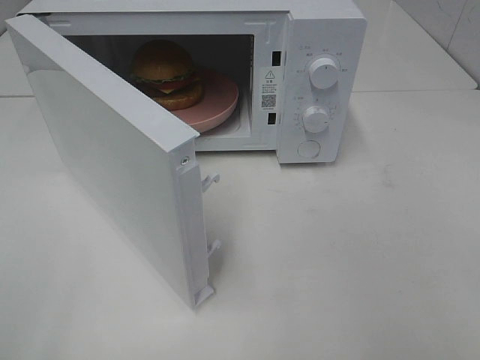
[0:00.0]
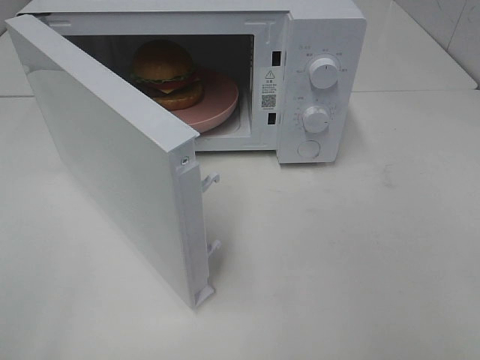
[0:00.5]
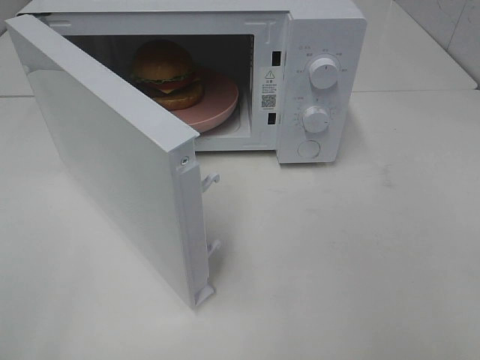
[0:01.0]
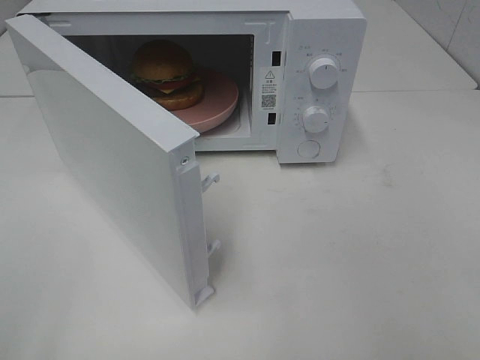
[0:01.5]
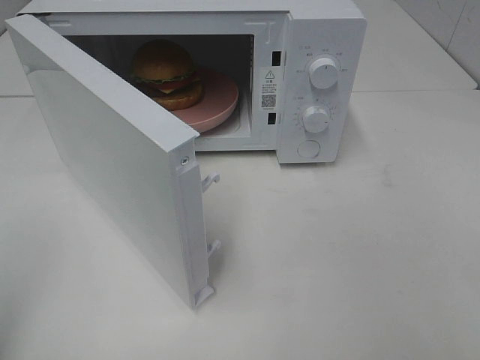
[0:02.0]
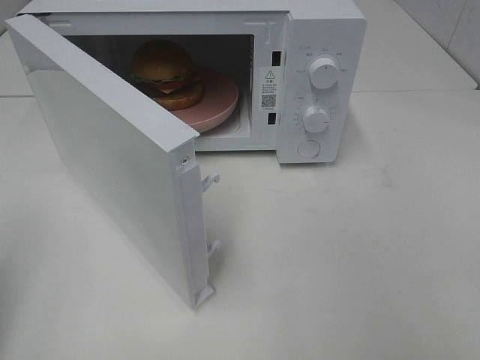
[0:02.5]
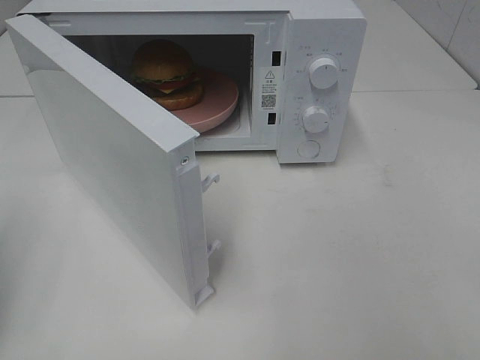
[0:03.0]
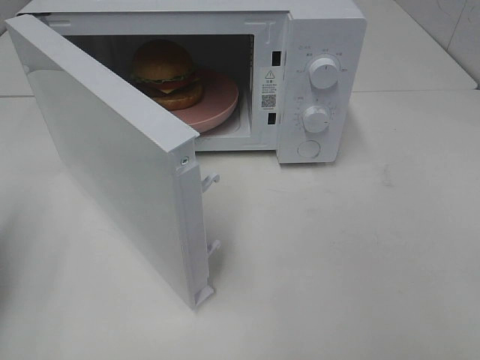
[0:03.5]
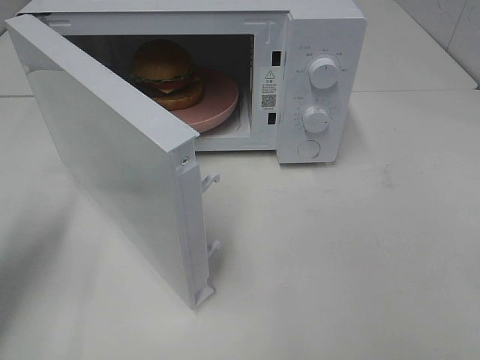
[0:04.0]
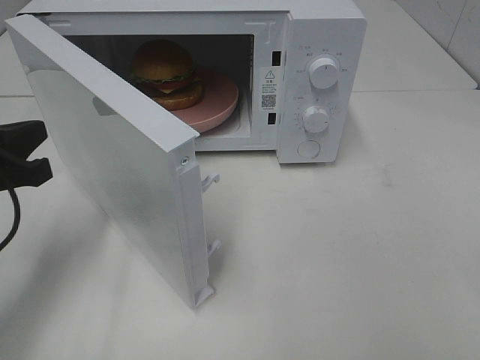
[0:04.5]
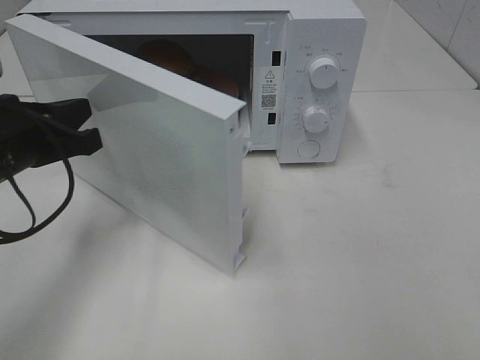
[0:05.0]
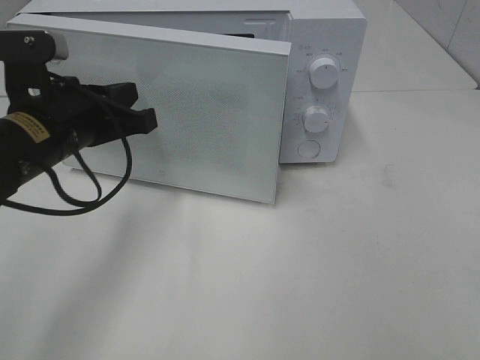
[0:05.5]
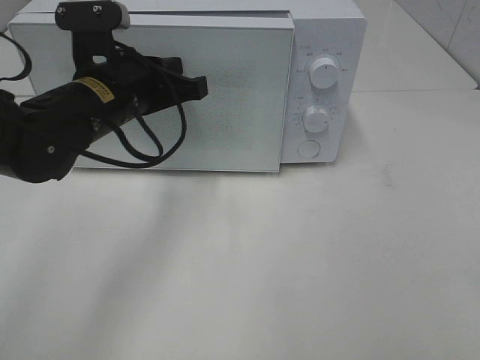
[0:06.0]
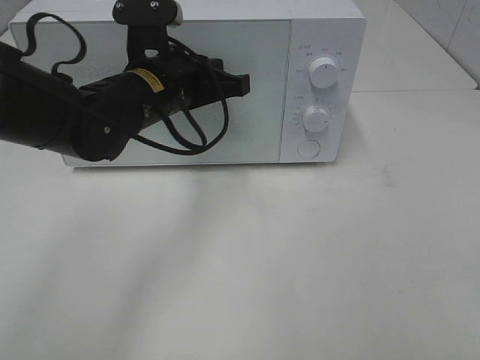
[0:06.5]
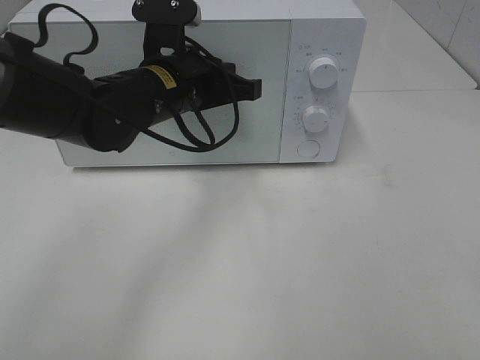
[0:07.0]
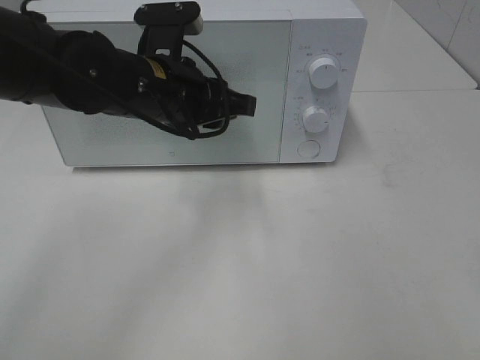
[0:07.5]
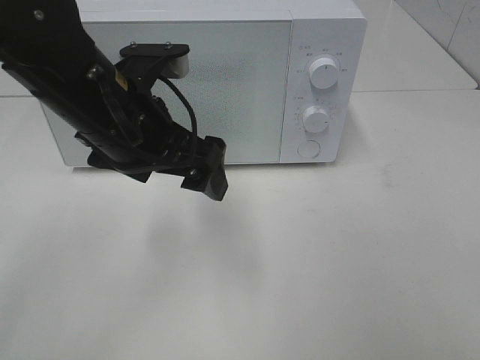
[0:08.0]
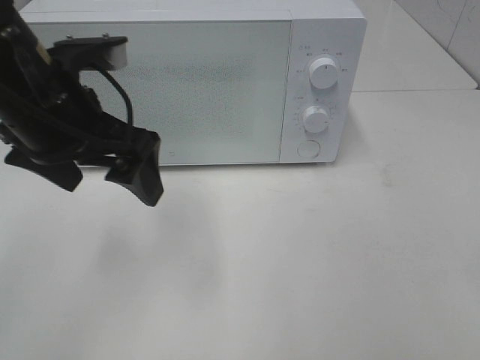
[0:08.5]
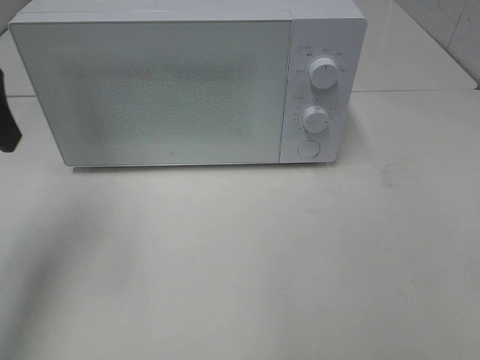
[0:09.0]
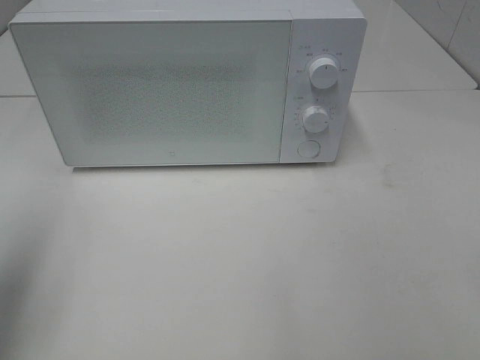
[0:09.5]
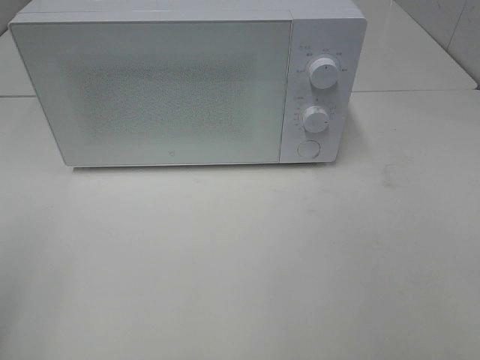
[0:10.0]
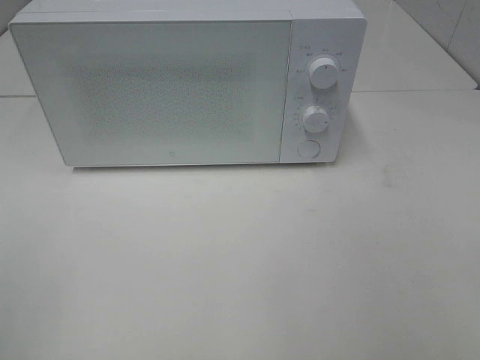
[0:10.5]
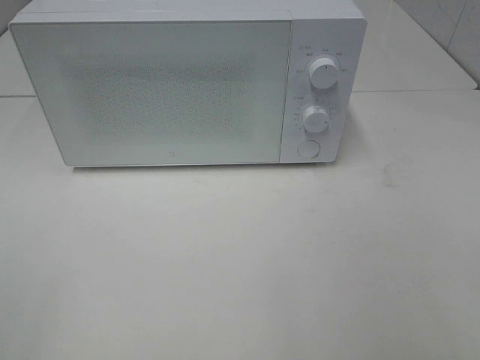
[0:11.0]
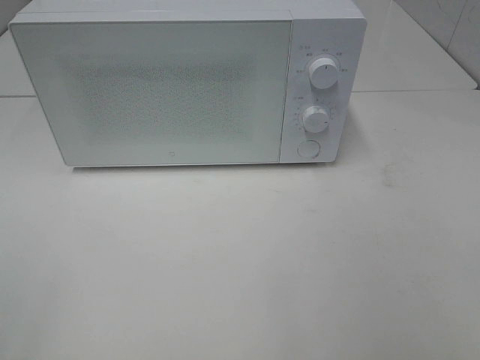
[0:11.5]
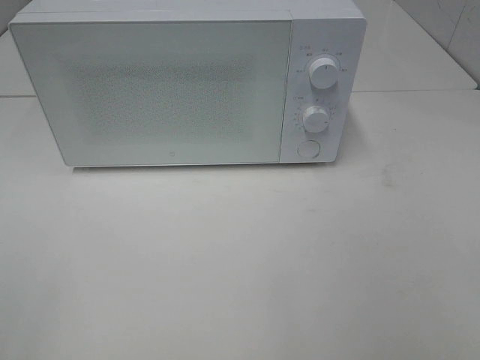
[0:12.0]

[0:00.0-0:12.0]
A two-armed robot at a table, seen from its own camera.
Task of the whole recording: Heat the burger.
Step, 0:00.0 to 0:07.0: Left hand: close the microwave door.
0:02.0 to 0:04.0: The left gripper heads forward and downward, covering approximately 20 cm.
0:04.0 to 0:06.0: The left gripper travels to the right and forward by approximately 20 cm.
0:06.0 to 0:08.0: The left gripper goes some 5 cm backward, and opens its fingers.
0:08.0 to 0:10.0: The left gripper moves to the left and backward, approximately 30 cm.

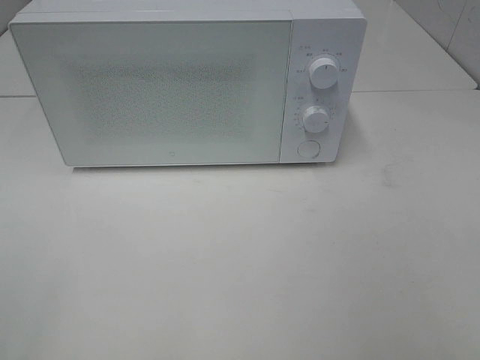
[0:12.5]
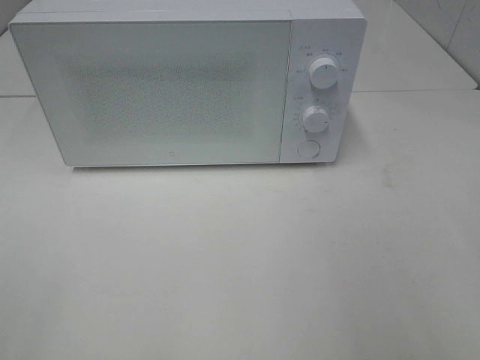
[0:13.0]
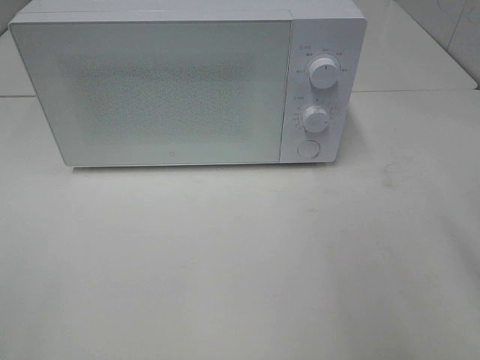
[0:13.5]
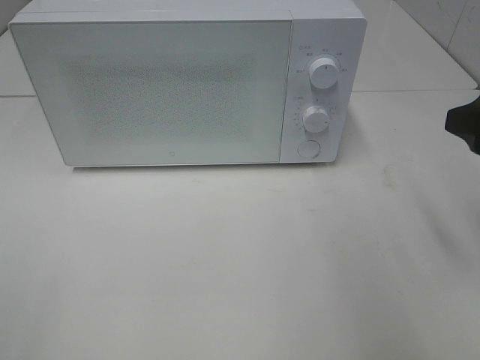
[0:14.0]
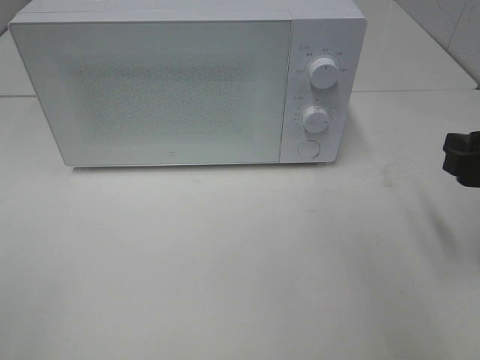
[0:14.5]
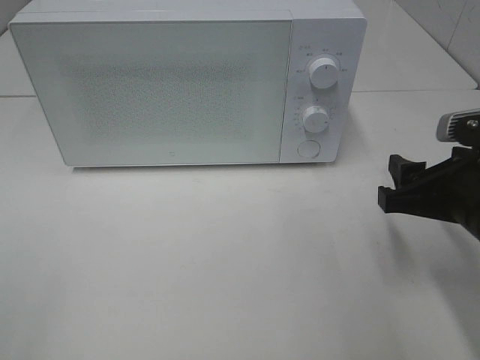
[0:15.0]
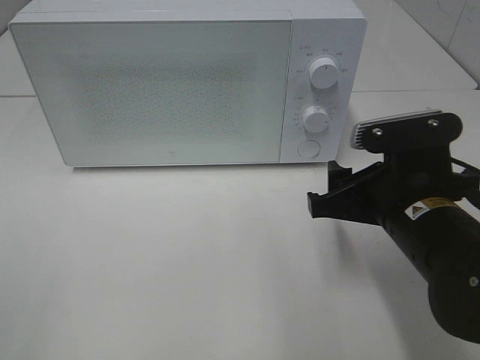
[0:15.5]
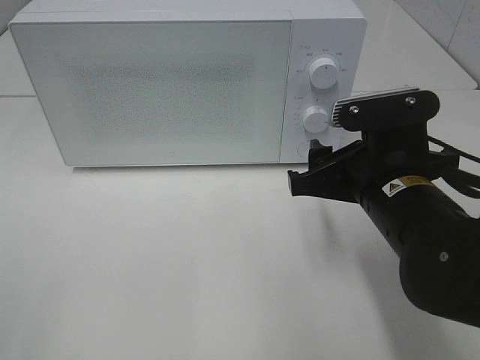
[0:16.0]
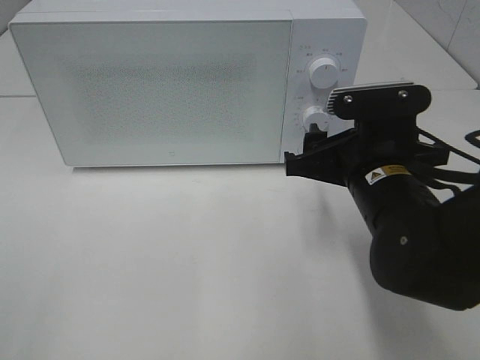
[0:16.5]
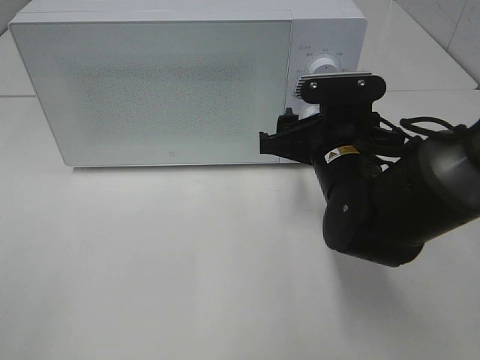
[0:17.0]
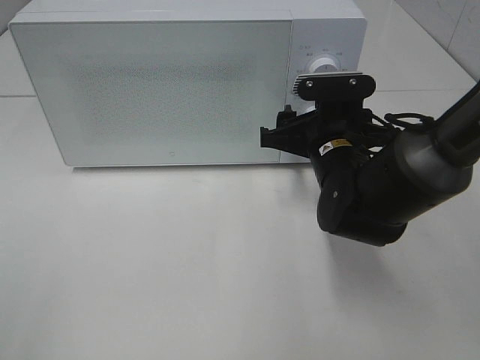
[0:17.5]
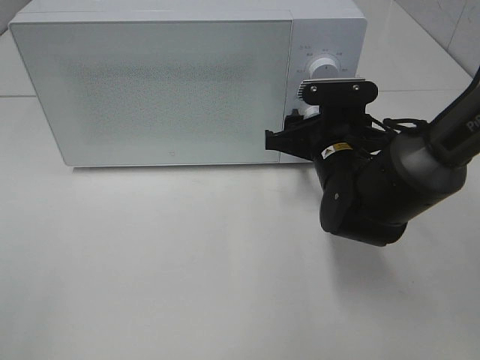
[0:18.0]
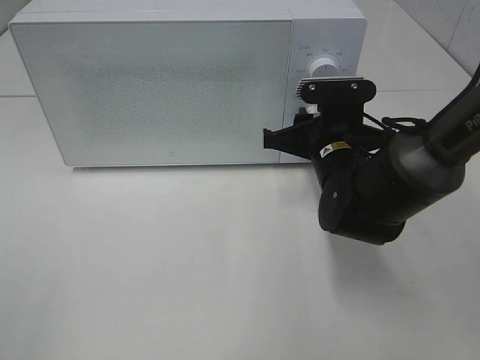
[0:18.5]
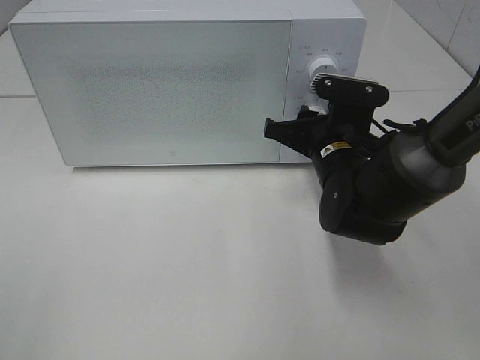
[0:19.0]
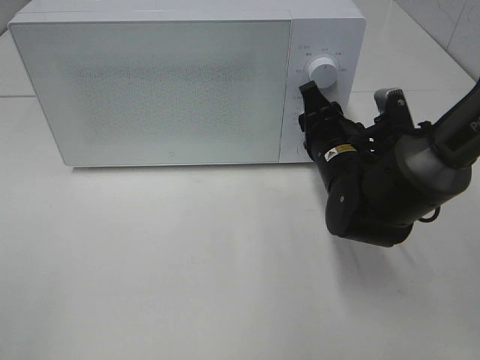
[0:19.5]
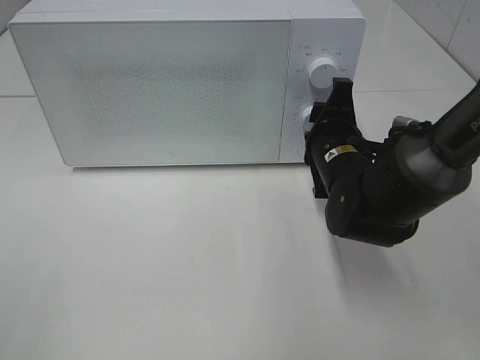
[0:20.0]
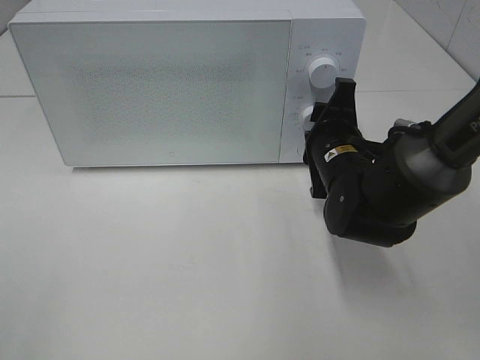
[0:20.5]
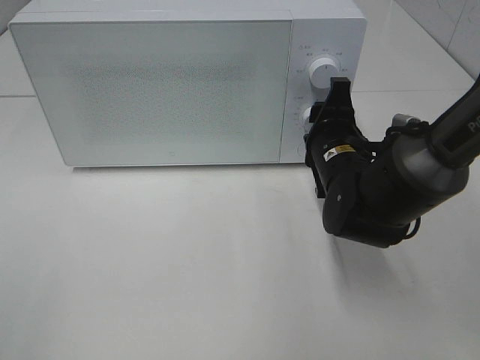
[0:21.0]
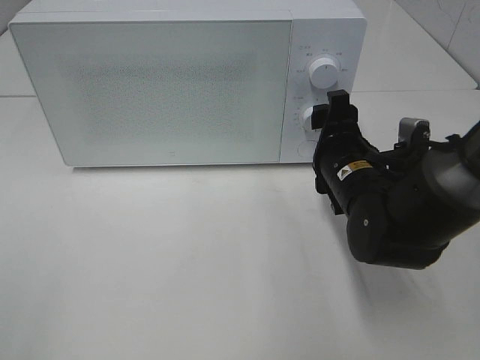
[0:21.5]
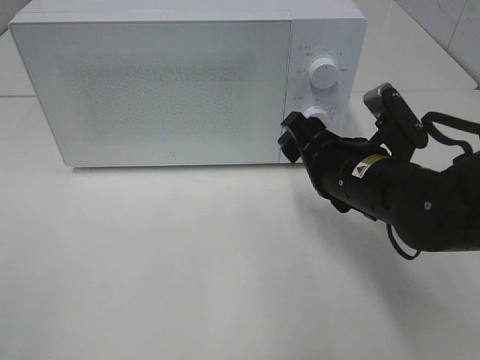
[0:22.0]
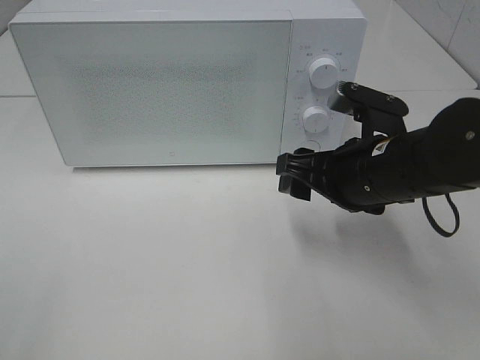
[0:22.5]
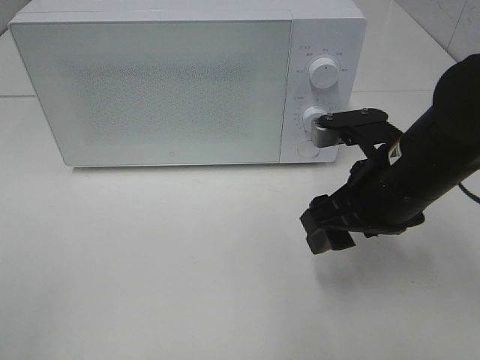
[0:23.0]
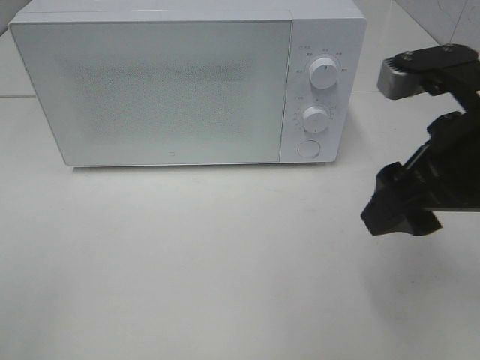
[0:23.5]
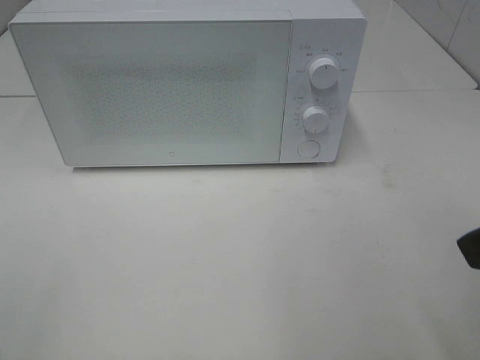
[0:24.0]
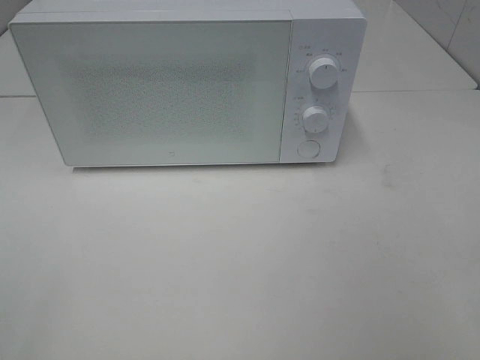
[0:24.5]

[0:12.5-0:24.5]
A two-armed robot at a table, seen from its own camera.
Task of the whole recording: Heat the burger.
Step, 0:12.5 to 0:21.0: Right hand: twist timer button.
0:12.5 to 0:14.5: The right gripper shifts some 20 cm forward and downward.
0:14.5 to 0:16.5: The right gripper heads to the left, covering about 15 cm.
0:16.5 to 0:18.5: The right gripper shifts about 10 cm forward, and closes up.
0:20.5 to 0:22.5: The right gripper shifts approximately 5 cm backward.
0:22.5 to 0:24.5: The right gripper shifts some 25 cm backward, to the right and upward.

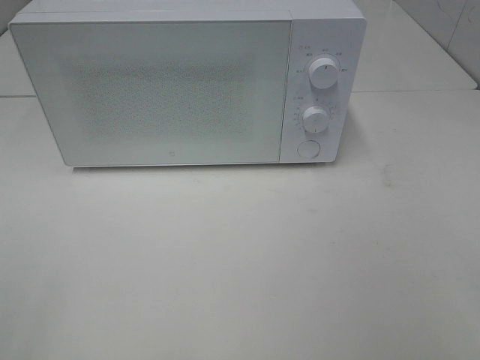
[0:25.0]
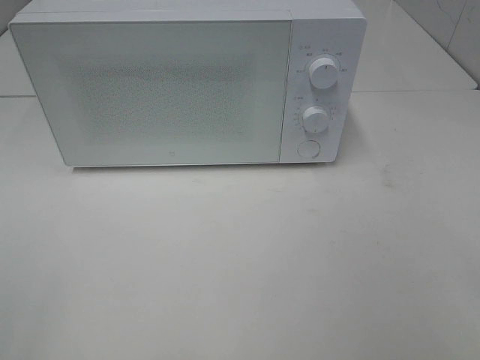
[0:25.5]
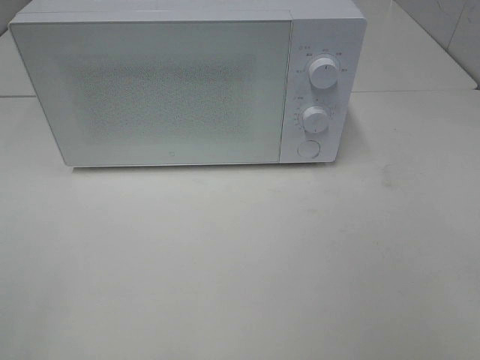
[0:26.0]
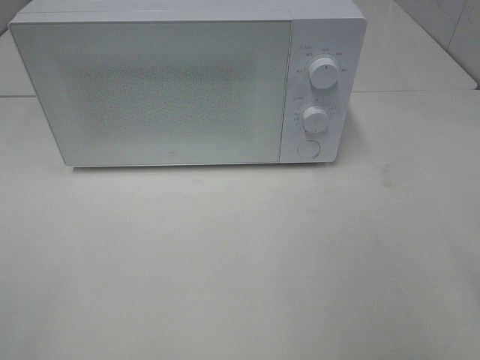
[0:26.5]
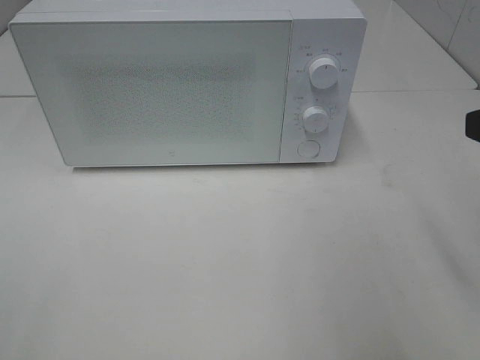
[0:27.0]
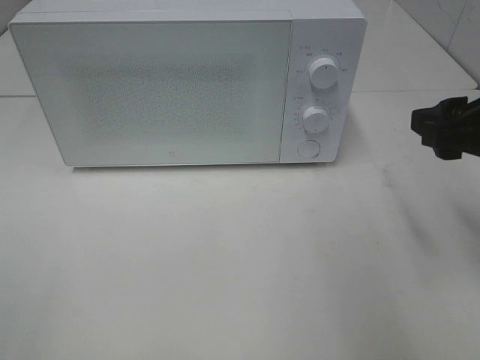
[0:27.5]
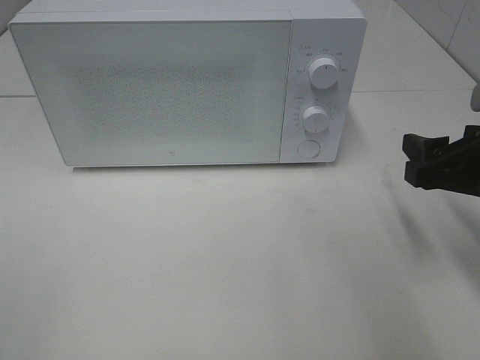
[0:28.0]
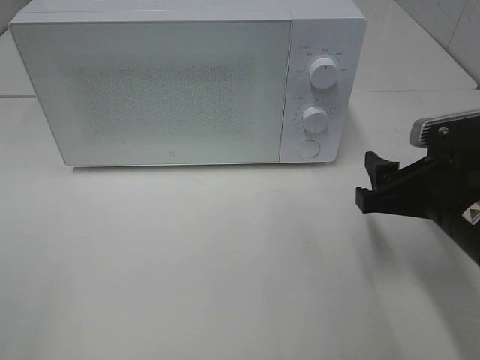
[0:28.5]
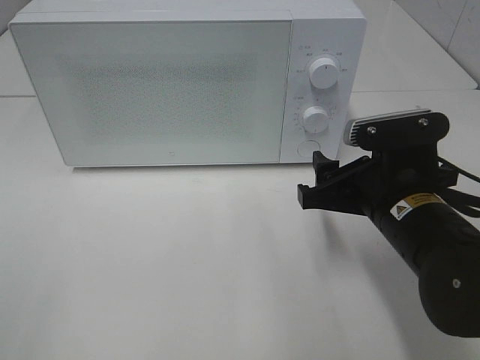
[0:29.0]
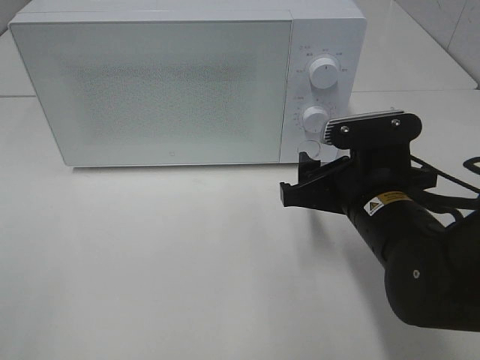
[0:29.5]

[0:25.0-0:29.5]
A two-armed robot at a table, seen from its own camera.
Task of the whole recording: Heat the burger.
0:27.0 to 0:29.5: The right gripper heads downward, to the left and forward, covering some 20 cm.
